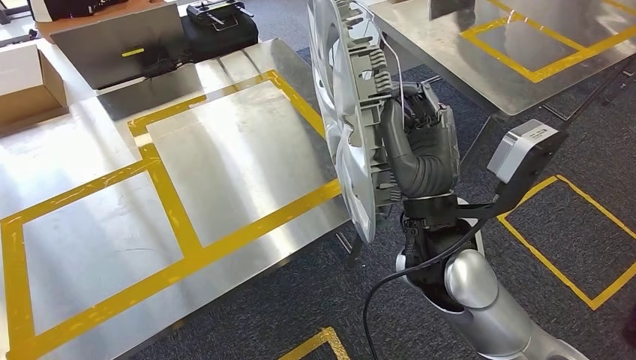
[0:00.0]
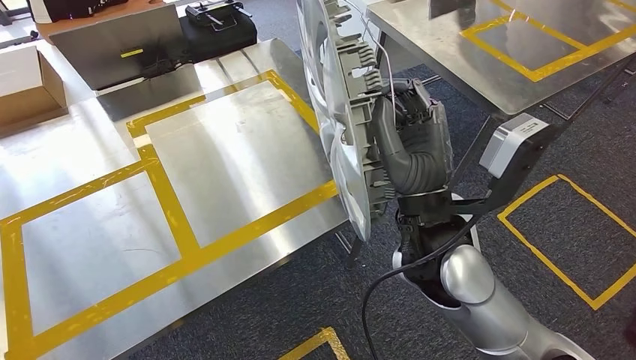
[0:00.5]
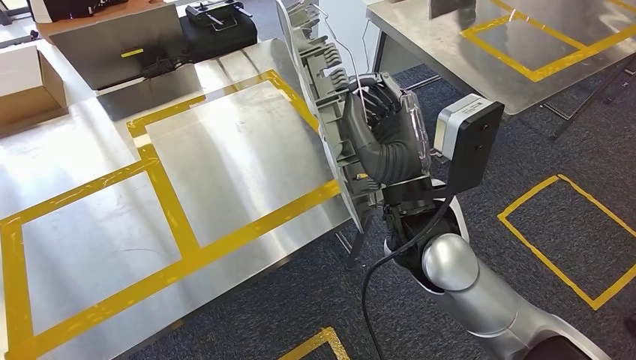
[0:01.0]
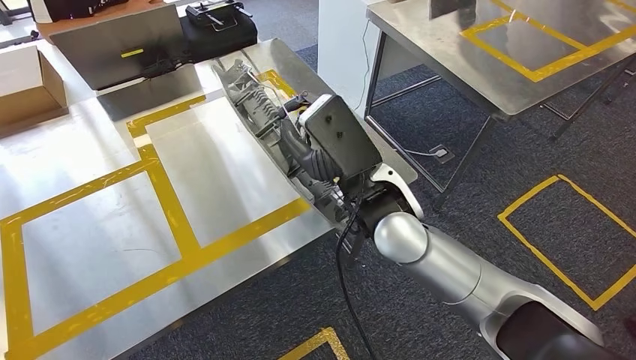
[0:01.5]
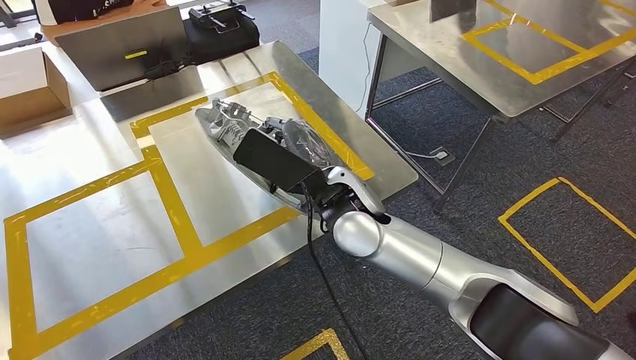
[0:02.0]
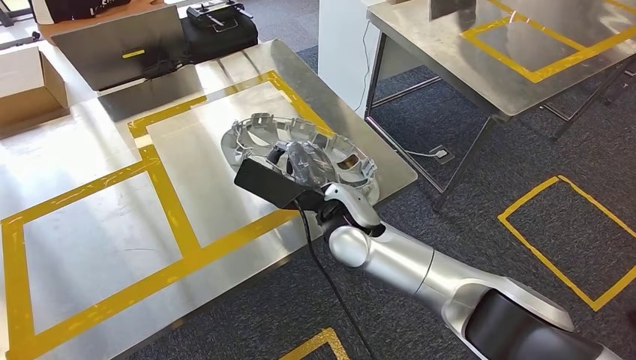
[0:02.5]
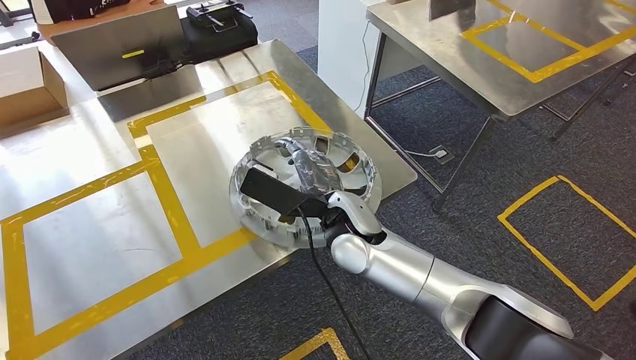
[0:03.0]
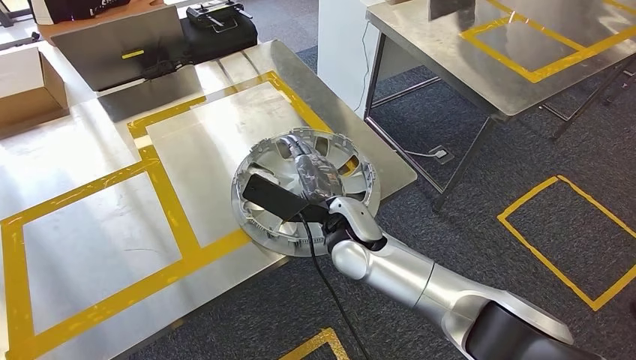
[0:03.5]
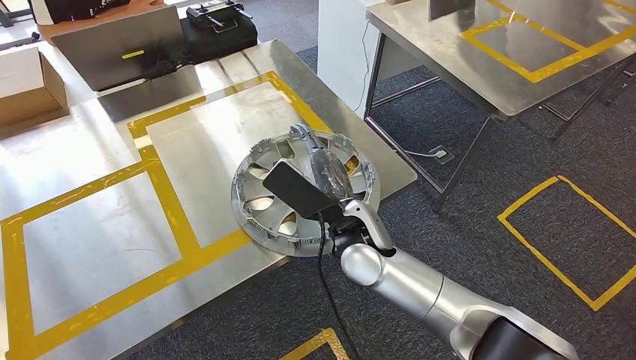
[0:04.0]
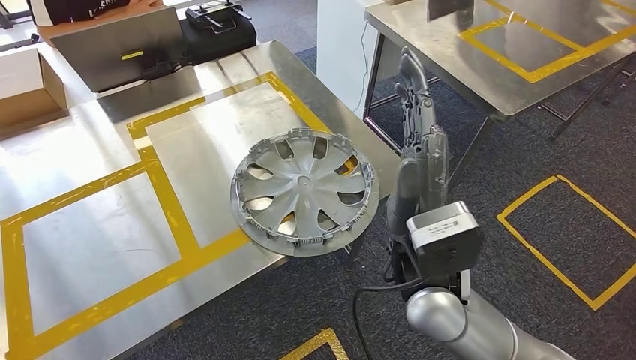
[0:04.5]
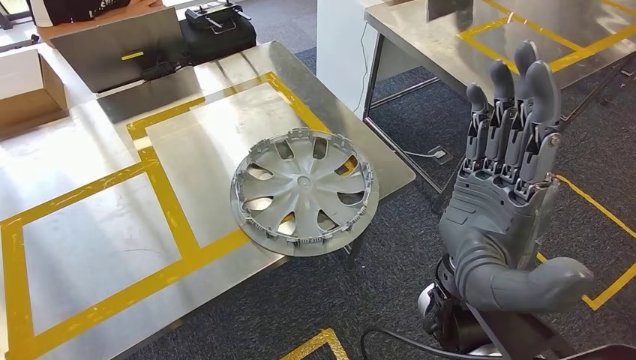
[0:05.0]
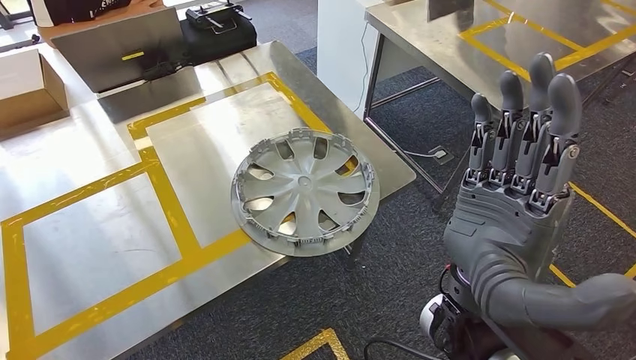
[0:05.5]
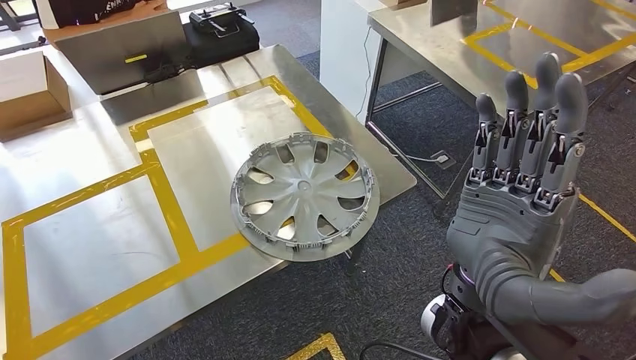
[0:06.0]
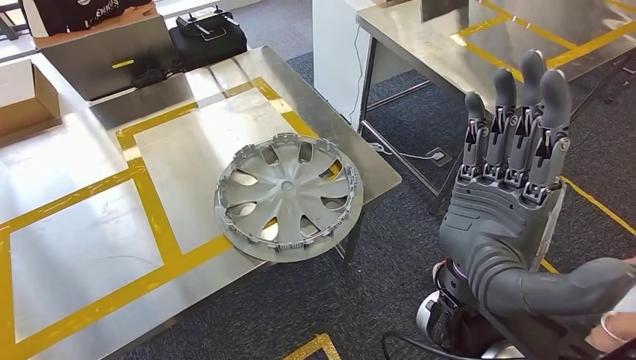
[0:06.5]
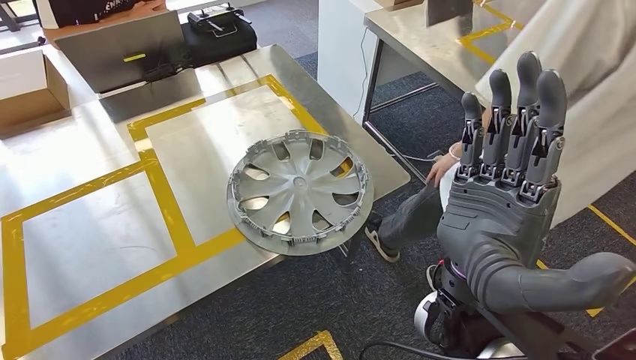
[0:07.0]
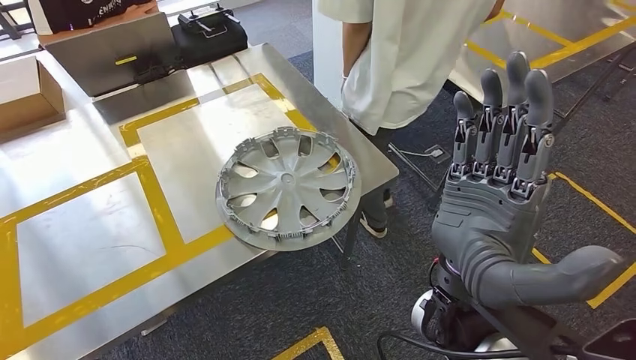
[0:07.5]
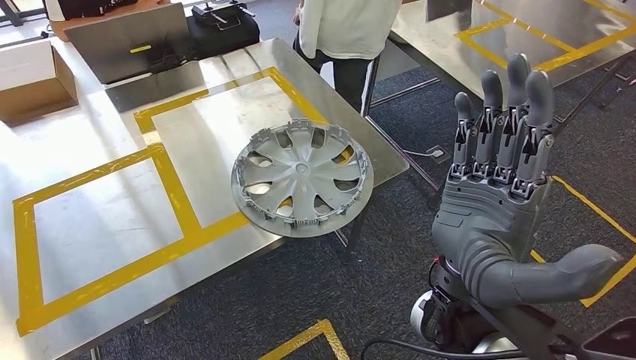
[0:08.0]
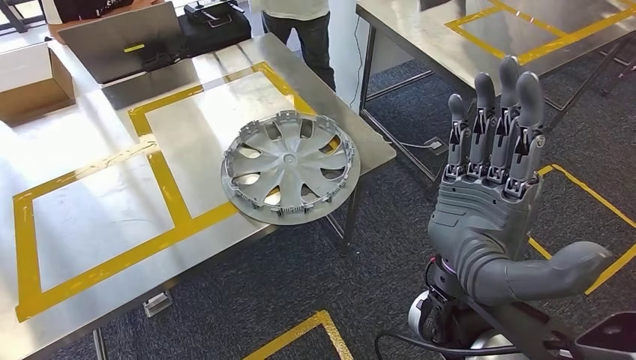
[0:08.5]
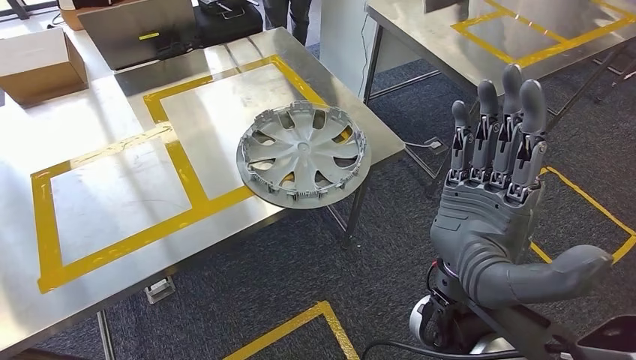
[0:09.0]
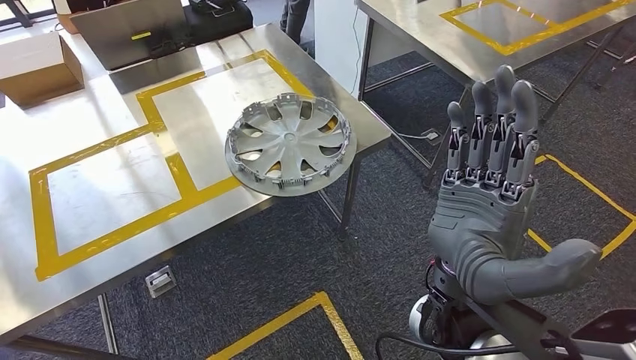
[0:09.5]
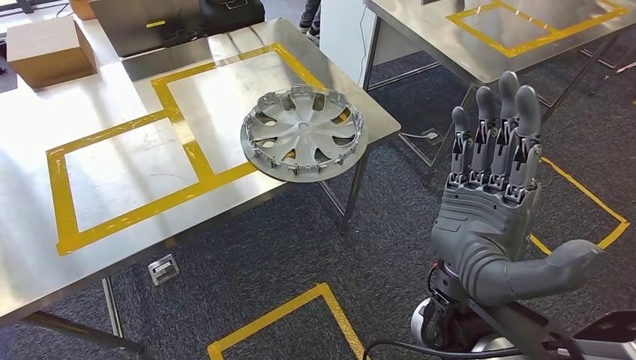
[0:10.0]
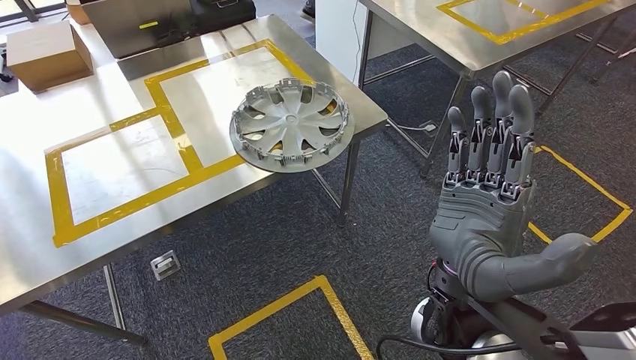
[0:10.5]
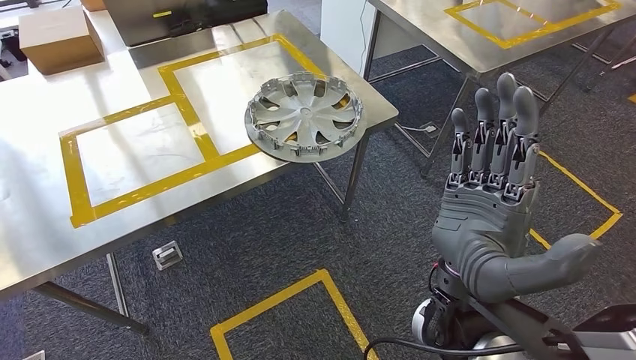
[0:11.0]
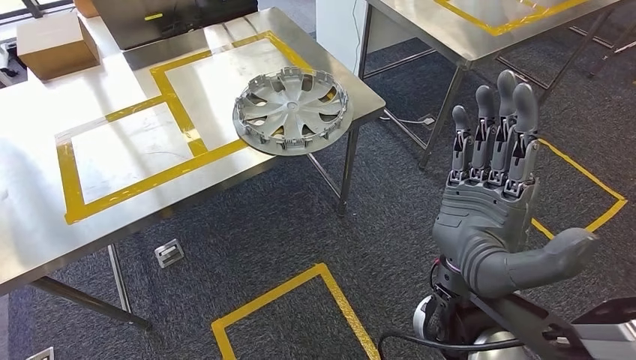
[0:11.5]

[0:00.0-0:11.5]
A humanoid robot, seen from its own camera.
Step, 0:00.0 to 0:04.5: Insert the large material into the corresponding slot on the workbench.
0:02.0 to 0:04.0: The right hand heads downward, covering approximately 5 cm.

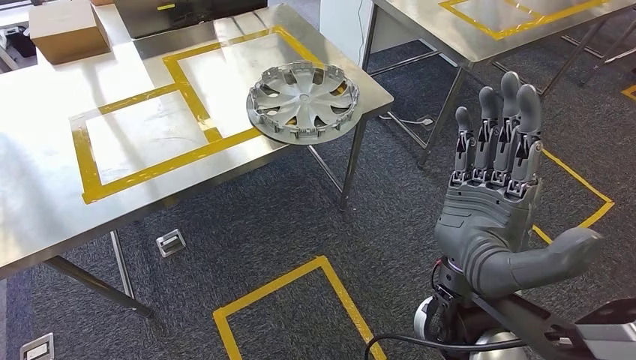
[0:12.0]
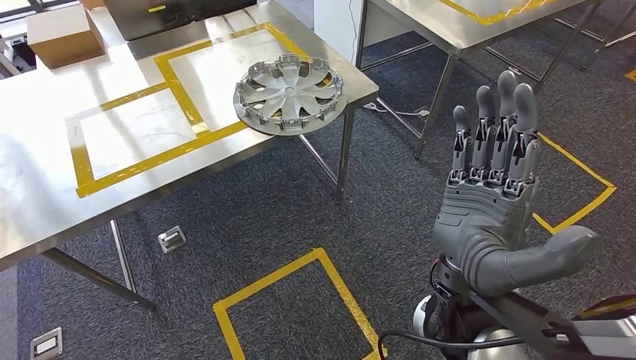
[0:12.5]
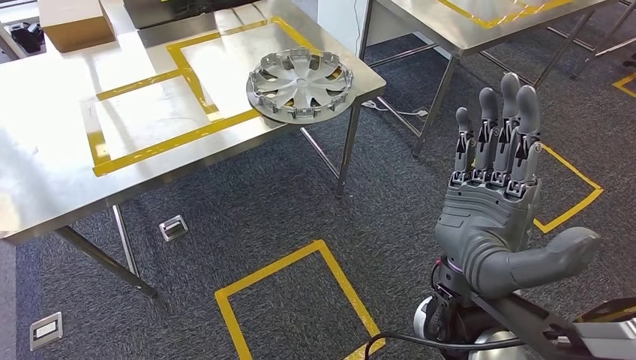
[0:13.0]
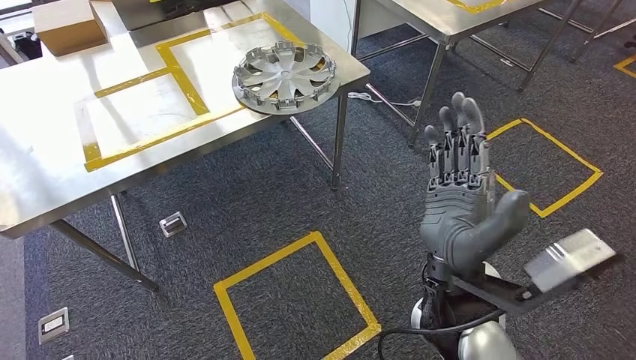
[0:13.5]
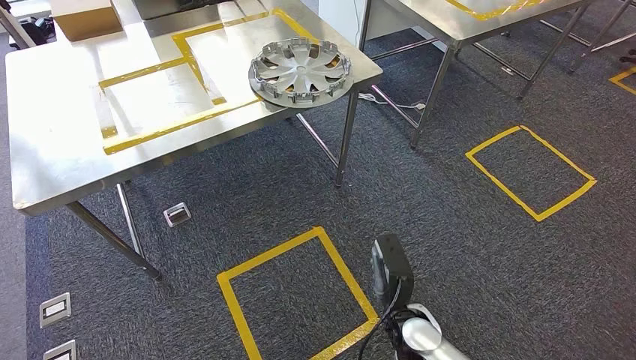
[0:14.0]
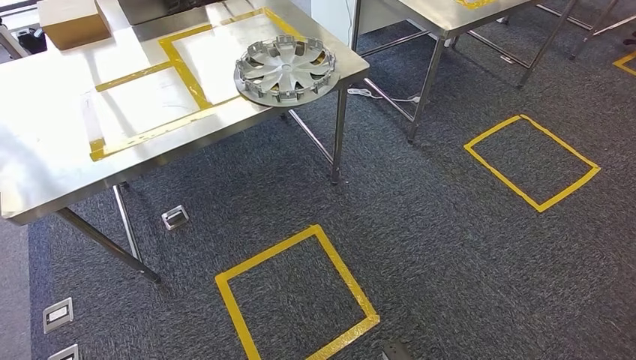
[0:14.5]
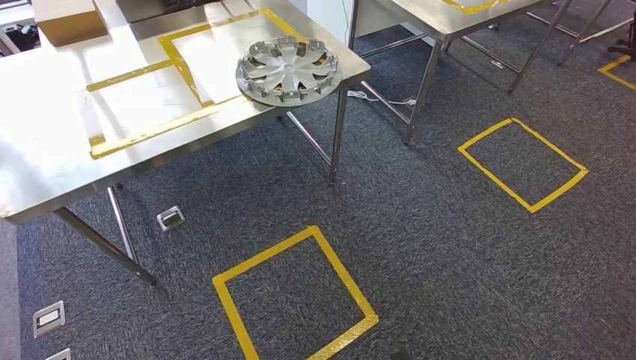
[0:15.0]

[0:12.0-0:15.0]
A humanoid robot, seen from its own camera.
Step, 0:12.0 to 0:15.0: Move to the initial position of the shelf.

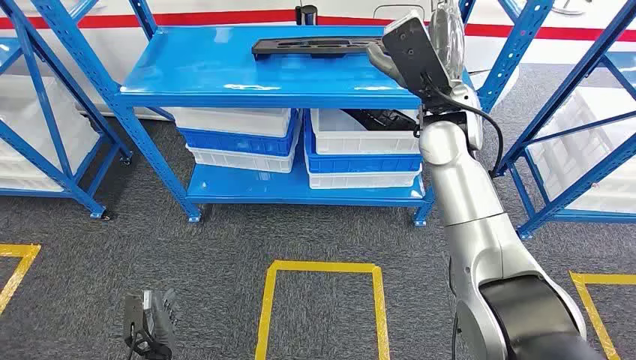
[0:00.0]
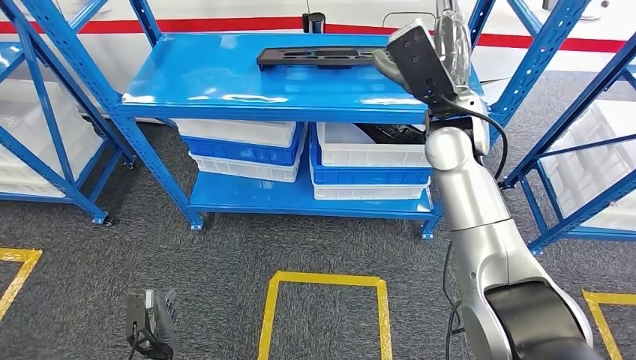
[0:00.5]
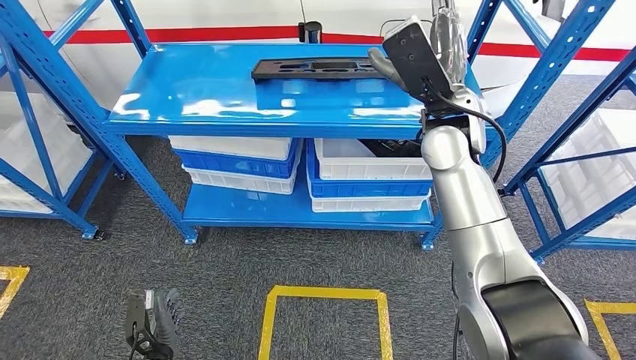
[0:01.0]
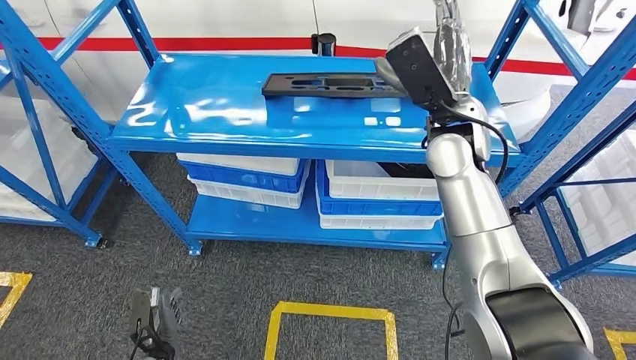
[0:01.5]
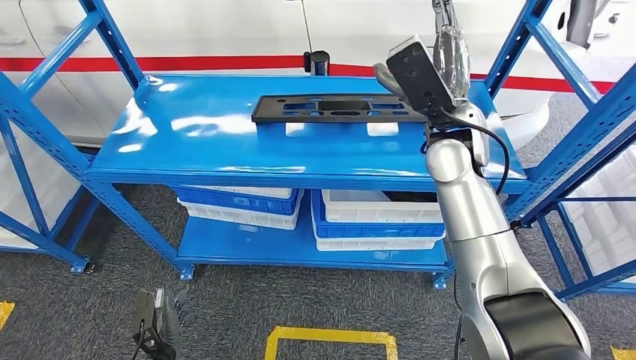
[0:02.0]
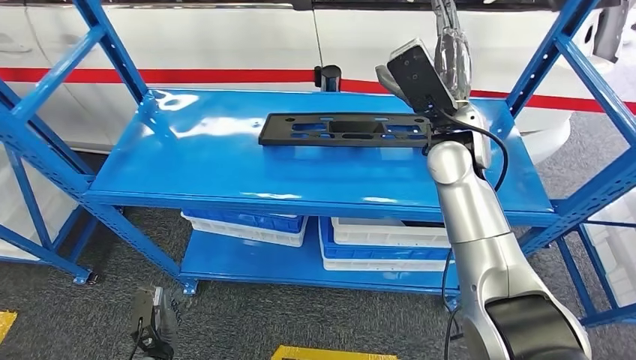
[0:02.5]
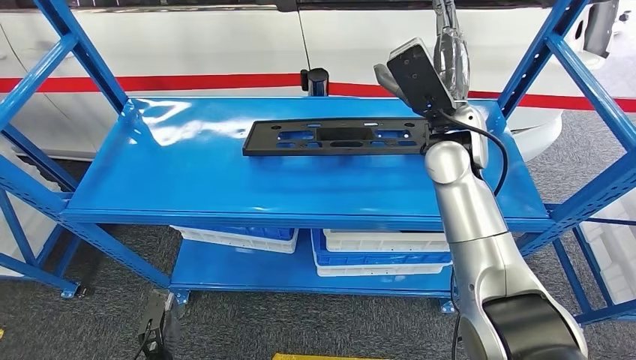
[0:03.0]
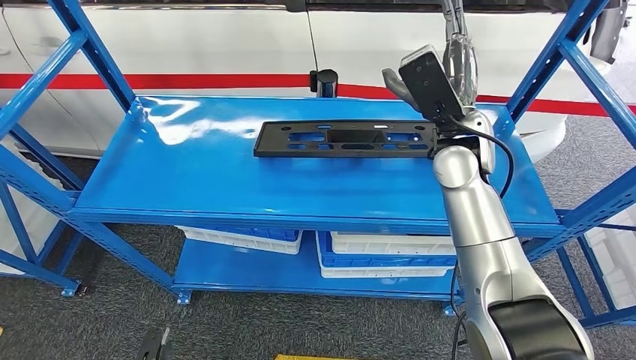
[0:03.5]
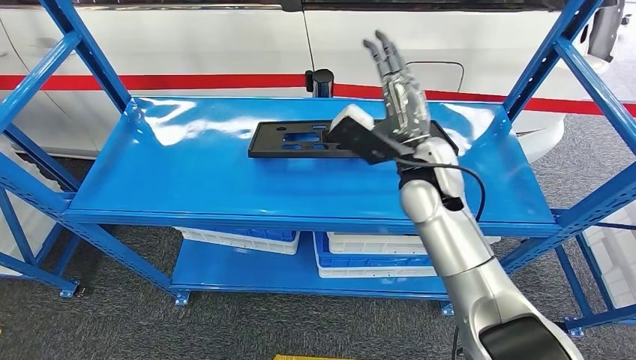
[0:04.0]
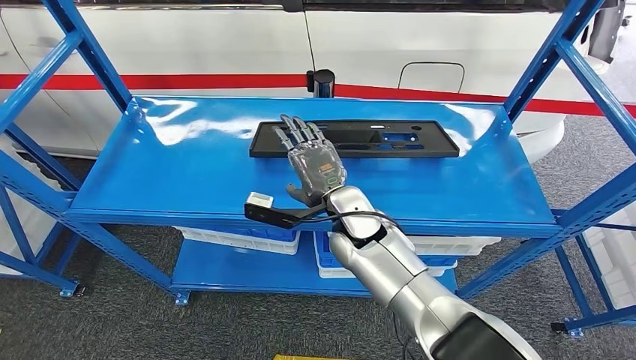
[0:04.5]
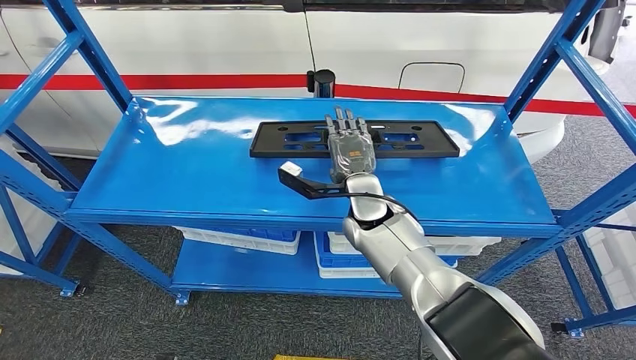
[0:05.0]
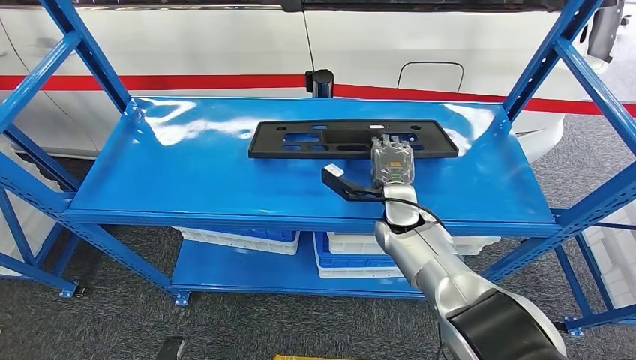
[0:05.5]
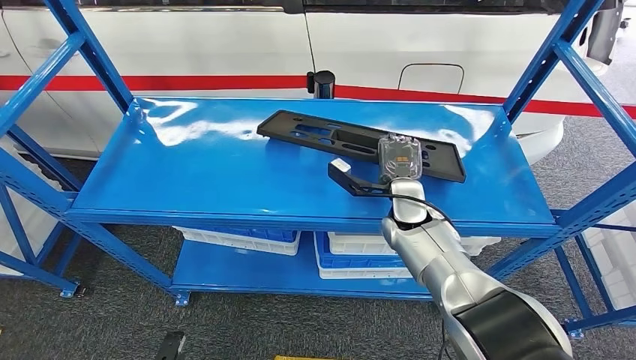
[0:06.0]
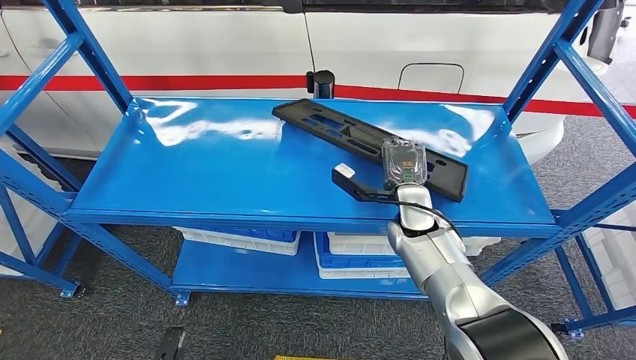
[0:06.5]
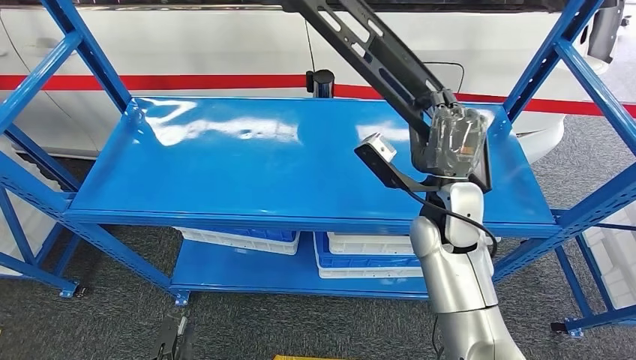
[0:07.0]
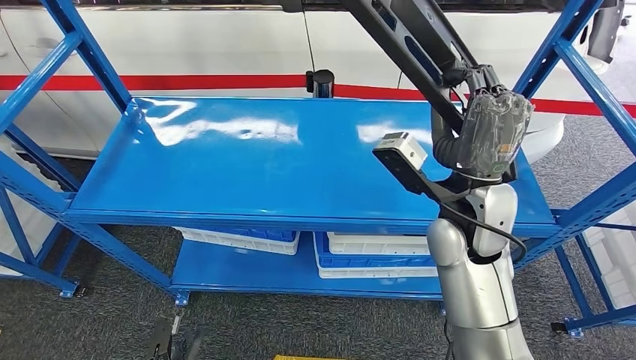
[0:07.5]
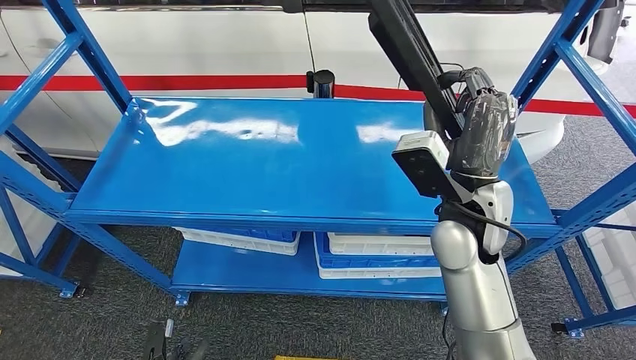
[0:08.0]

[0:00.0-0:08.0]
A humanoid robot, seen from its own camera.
0:04.0 to 0:06.0: The right hand shifts approximately 15 cm downward, while the left hand moves forward, roughly 5 cm.
0:06.0 to 0:08.0: The right hand heads upward and backward, covering some 15 cm.
